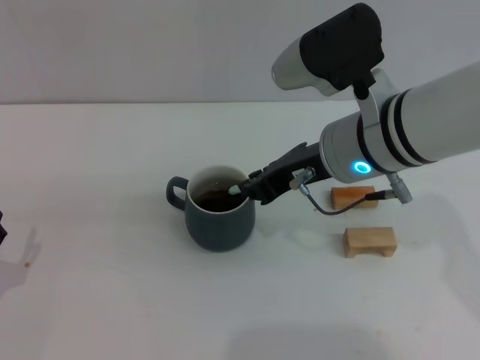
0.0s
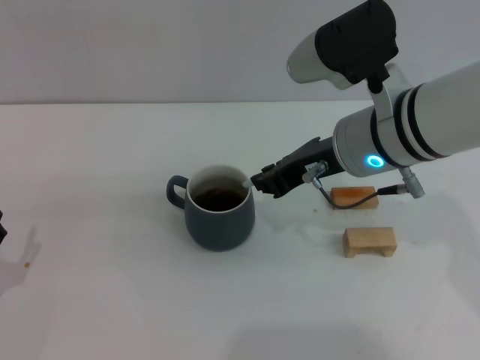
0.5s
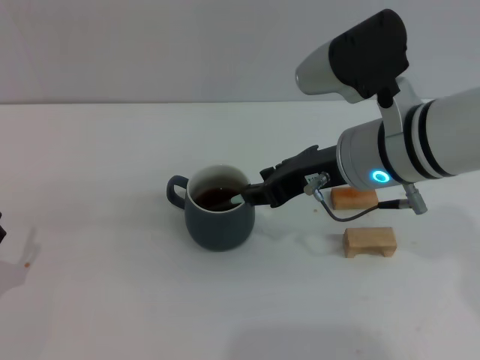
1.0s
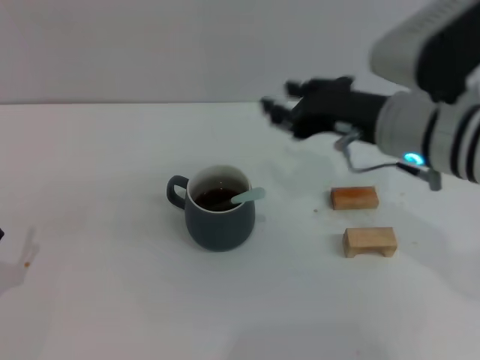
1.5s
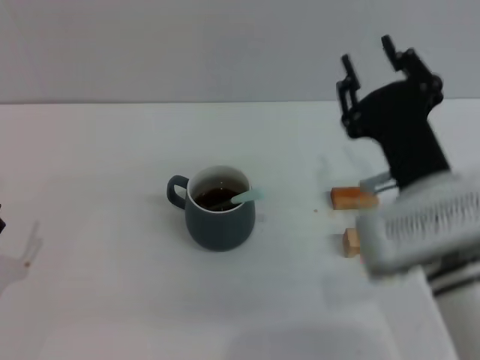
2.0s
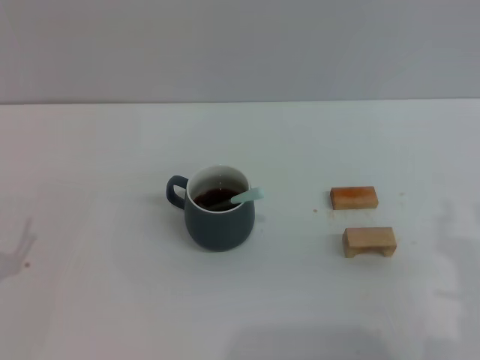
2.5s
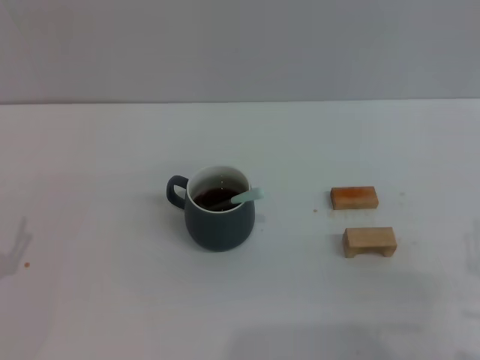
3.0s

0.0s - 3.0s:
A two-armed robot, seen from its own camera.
Task of the whole recording: Move the grey cup to the center, lift the blue spoon, stir it three times in the cup, and put the spoon into the cup.
0.0s - 1.5s: The right gripper moves to the right, roughly 5 cm, and opens up.
1.5s - 3.0s: The right gripper goes roughly 25 cm backward, downward and to the right.
